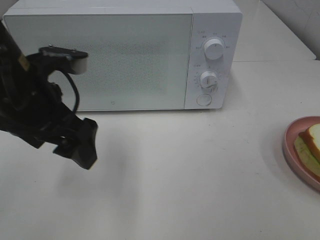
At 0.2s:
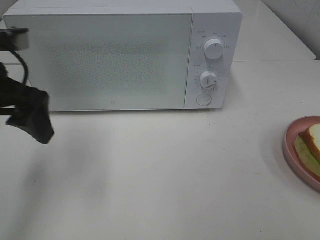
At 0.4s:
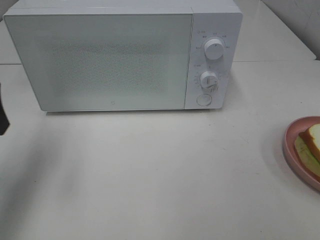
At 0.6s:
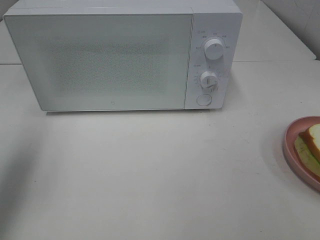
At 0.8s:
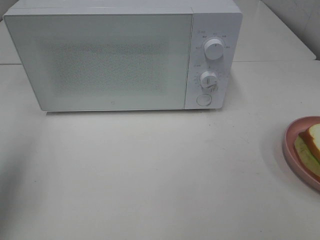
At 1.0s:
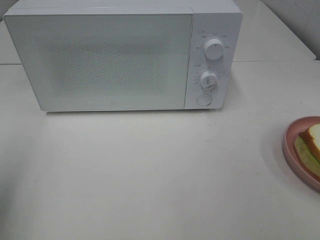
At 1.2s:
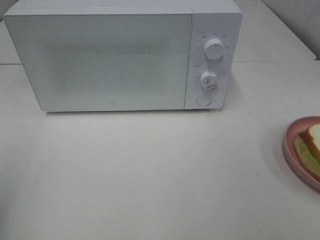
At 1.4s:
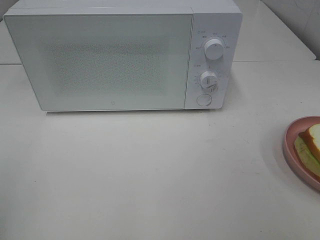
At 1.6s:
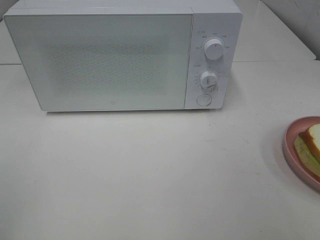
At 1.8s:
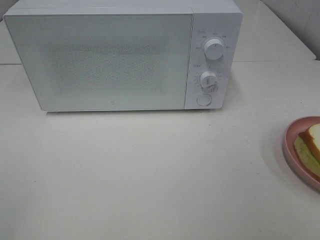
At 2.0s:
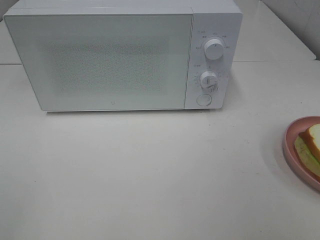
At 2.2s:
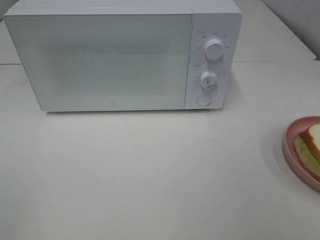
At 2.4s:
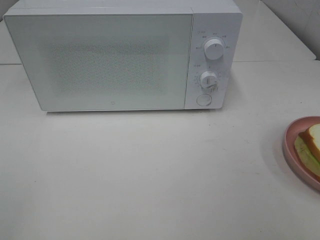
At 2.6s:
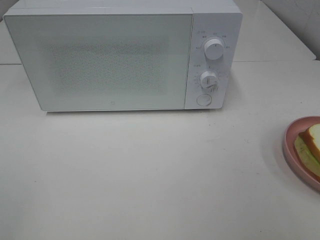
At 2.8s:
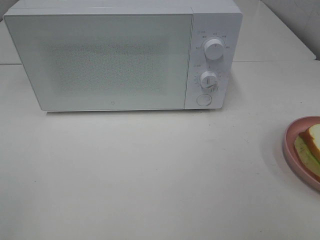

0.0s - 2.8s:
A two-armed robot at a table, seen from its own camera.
Task of the whole recording: Heat Sandwich.
0.0s - 1.4s: The left gripper is displaced backward and to the left by roughly 25 cm.

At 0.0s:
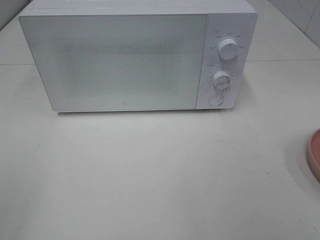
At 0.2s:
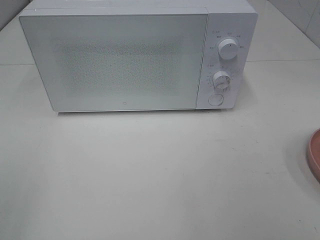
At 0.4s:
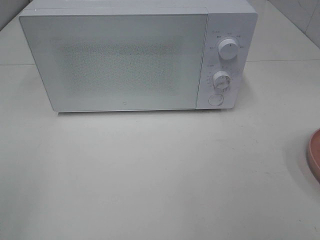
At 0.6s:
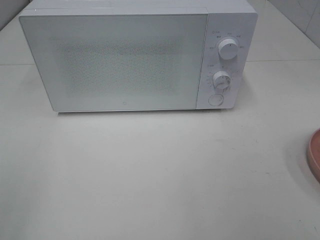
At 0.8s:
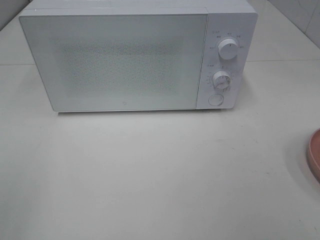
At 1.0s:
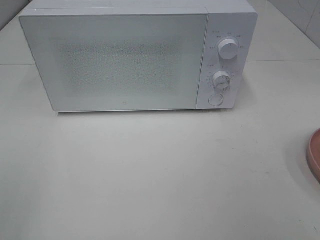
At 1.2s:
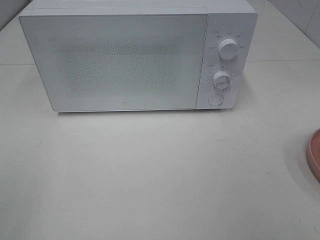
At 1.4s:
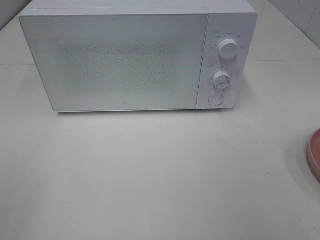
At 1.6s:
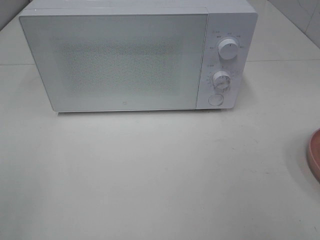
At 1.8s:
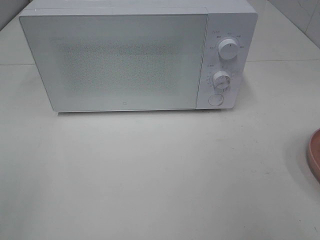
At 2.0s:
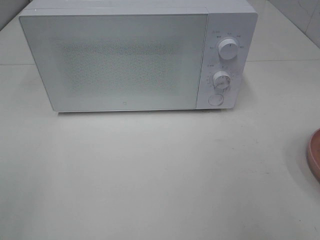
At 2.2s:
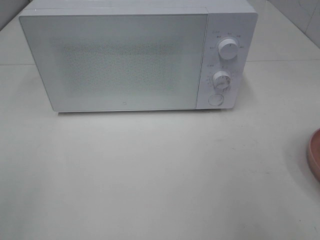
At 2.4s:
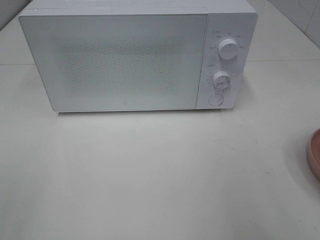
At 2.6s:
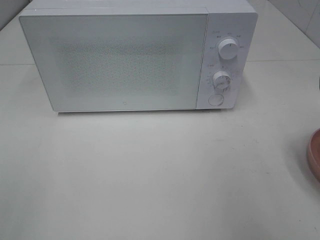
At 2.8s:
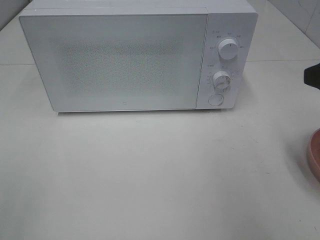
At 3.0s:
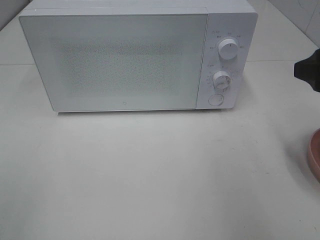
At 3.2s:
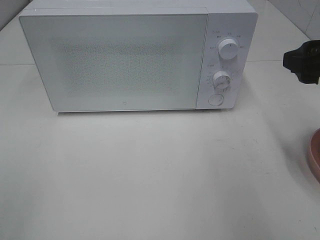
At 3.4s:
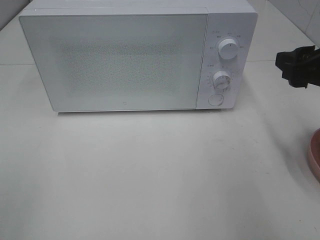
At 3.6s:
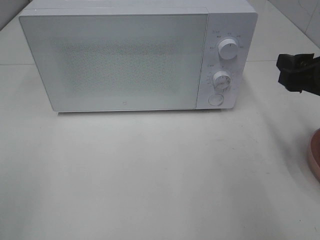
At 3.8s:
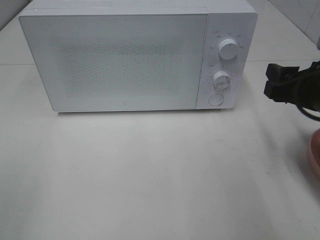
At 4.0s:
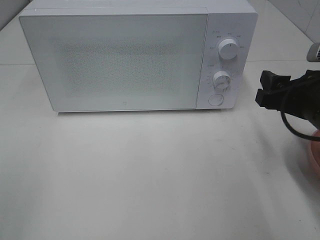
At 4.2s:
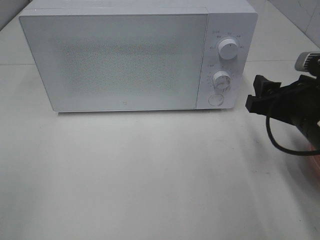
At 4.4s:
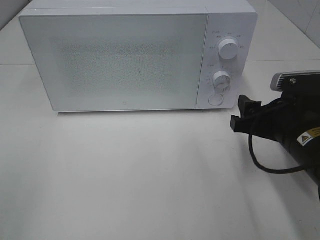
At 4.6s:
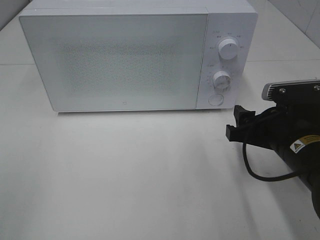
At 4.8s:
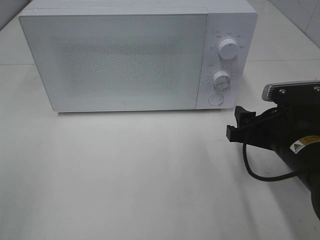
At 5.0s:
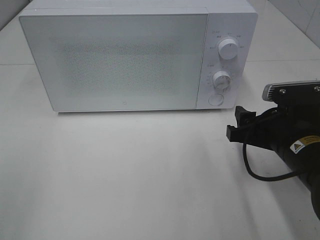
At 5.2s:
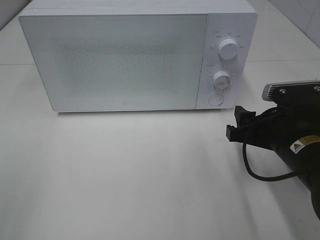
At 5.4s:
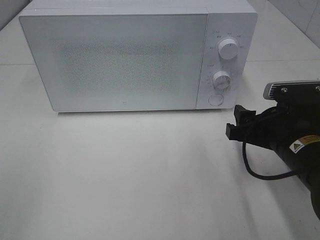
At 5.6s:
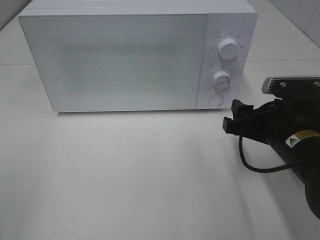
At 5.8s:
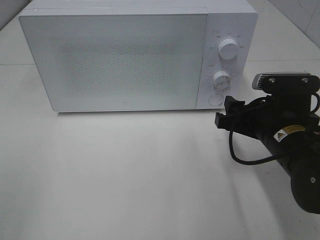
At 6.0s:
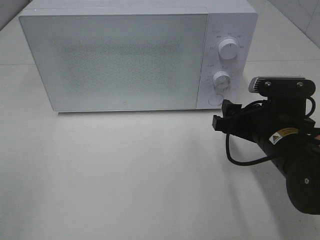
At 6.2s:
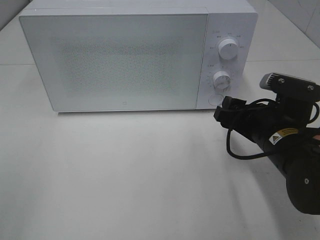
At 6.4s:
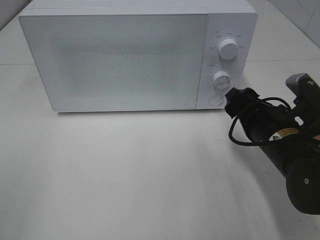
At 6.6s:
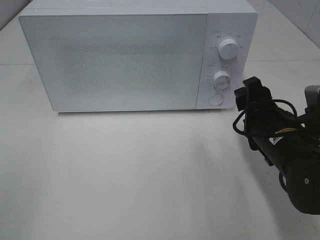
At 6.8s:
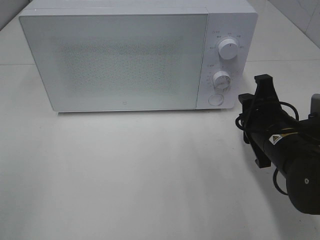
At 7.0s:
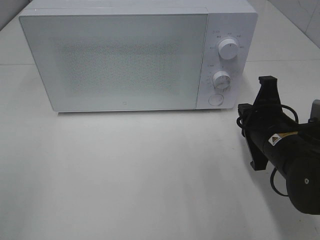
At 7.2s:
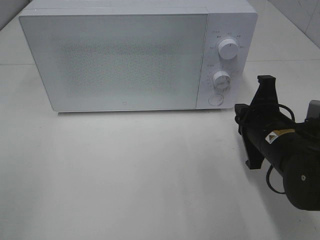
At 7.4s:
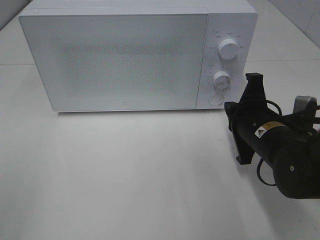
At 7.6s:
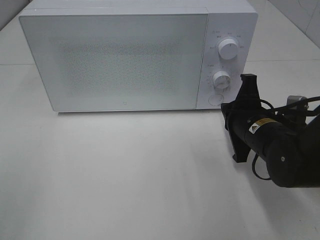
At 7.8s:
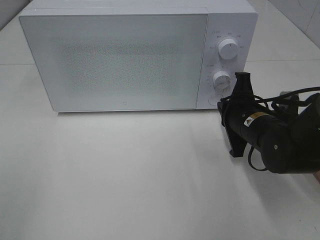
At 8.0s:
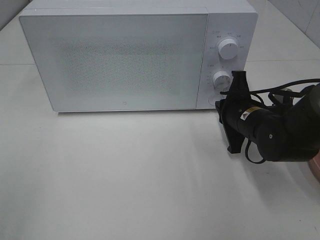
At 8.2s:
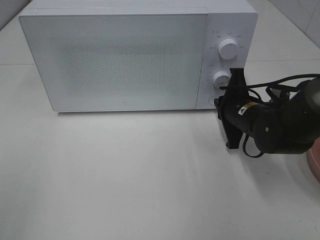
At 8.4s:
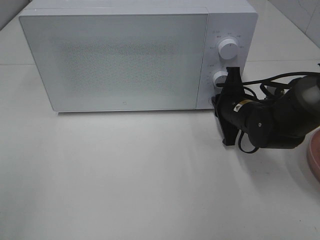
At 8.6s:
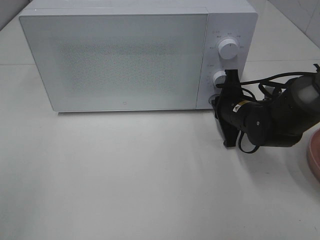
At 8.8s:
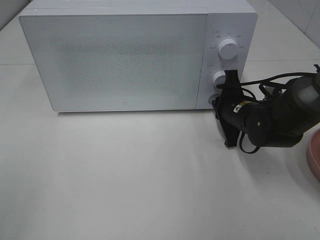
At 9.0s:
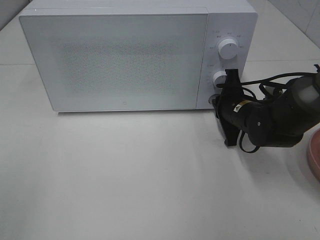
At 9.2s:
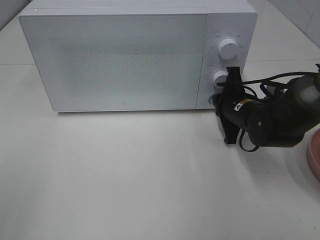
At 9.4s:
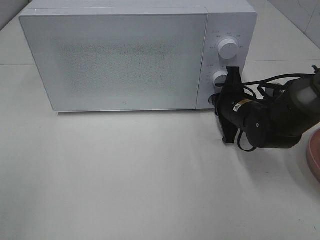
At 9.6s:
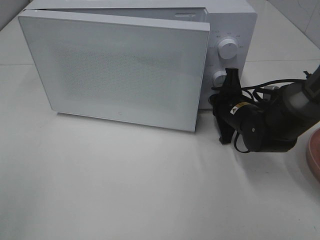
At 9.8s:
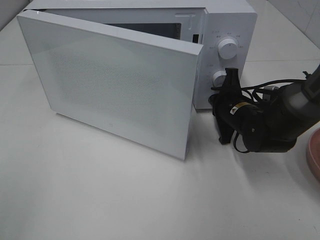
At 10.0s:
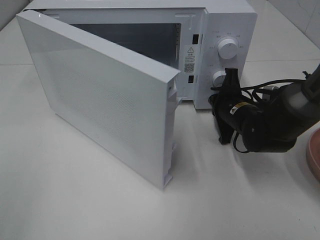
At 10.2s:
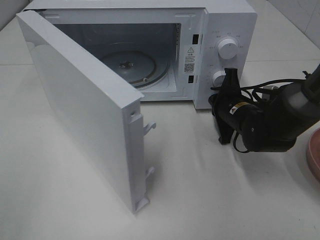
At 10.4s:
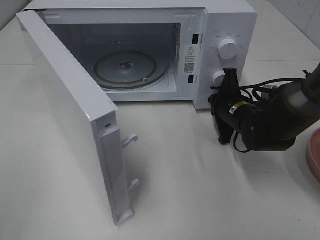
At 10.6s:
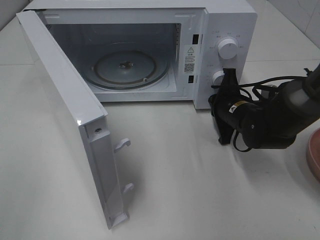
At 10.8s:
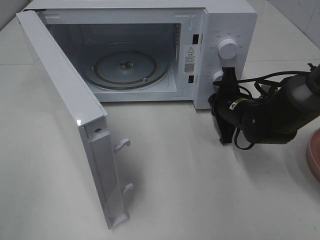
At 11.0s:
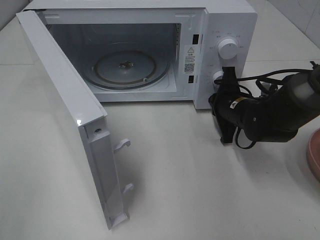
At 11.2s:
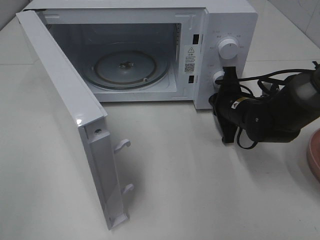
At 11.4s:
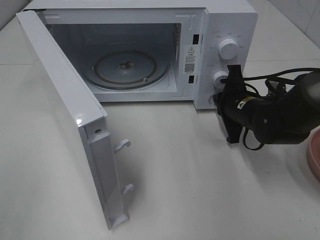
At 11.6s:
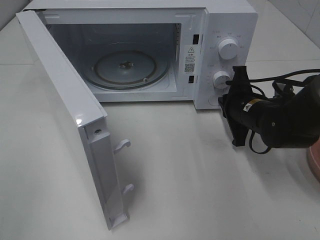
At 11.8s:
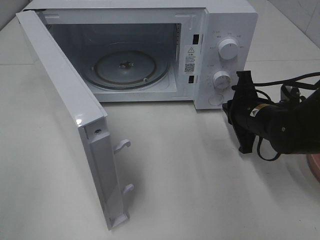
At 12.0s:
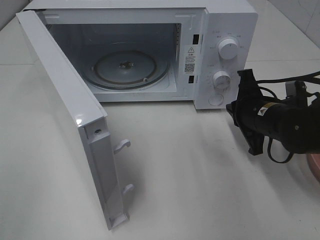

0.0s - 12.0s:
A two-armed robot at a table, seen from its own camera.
Task of the whole recording: Heat Sandwich.
Step, 0.0s - 11.4s: Right hand: press the switch.
1.6s - 3.0s: The right gripper goes about 15 cm forward.
3.0s - 4.4s: The right gripper heads downward and to the left, covering about 15 cm.
4.4s - 6.0s: The grippers stay close to where they were, moving slightly.
6.0s - 7.6s: The right gripper closes.
7.6s - 9.0s: The right gripper moves forward, roughly 10 cm.
10.4s - 12.0s: The right gripper shifts about 5 cm backward.

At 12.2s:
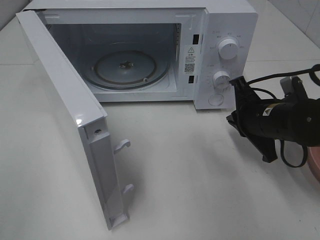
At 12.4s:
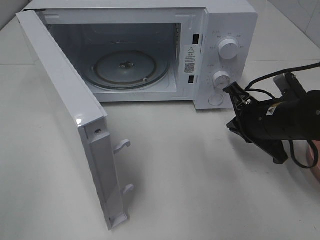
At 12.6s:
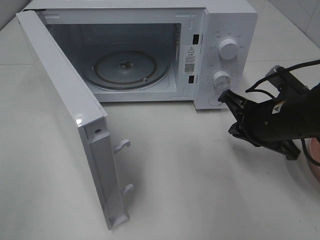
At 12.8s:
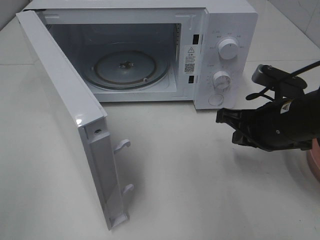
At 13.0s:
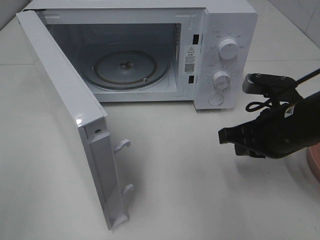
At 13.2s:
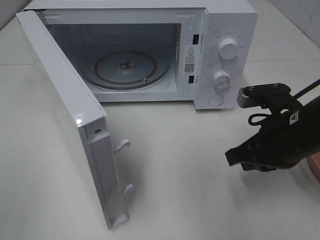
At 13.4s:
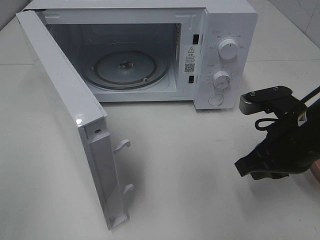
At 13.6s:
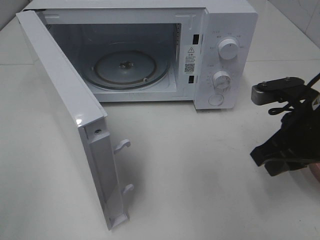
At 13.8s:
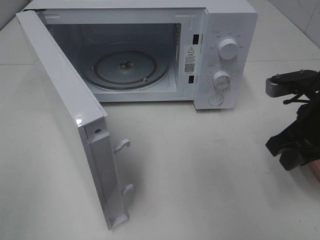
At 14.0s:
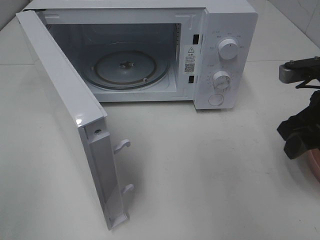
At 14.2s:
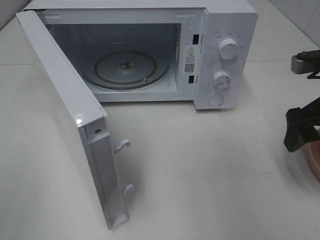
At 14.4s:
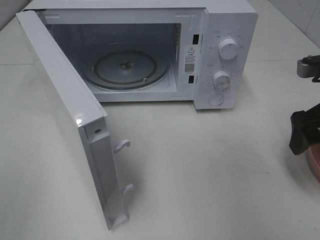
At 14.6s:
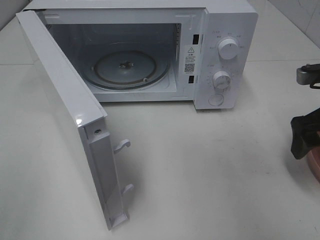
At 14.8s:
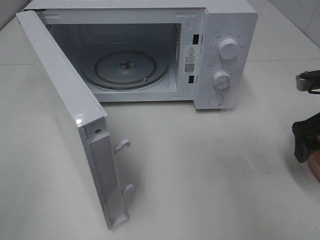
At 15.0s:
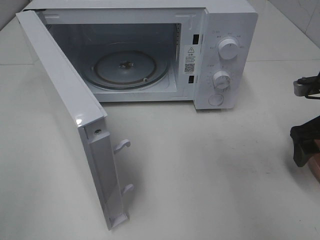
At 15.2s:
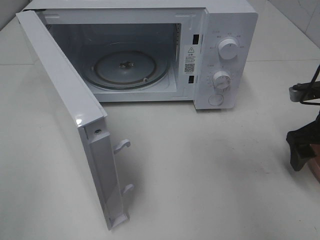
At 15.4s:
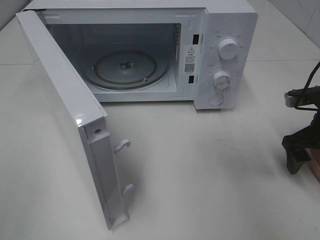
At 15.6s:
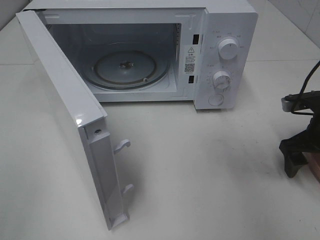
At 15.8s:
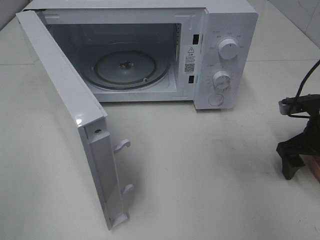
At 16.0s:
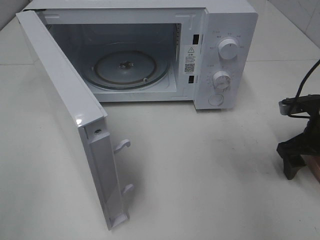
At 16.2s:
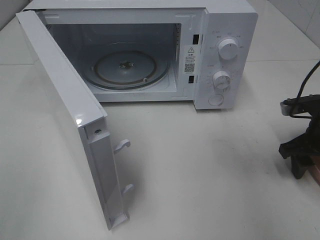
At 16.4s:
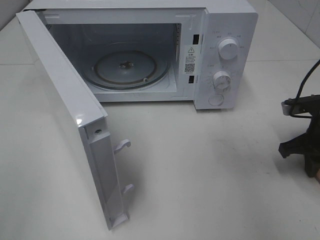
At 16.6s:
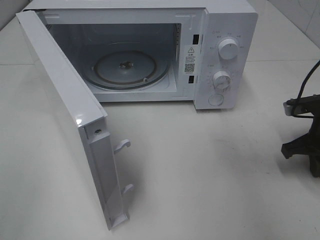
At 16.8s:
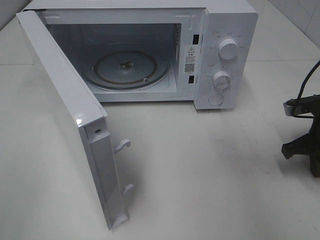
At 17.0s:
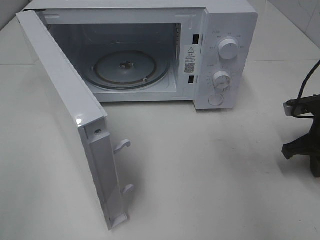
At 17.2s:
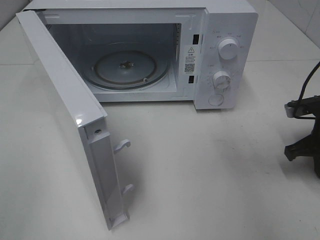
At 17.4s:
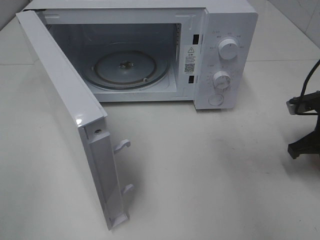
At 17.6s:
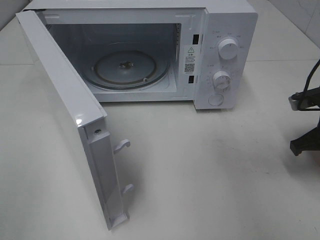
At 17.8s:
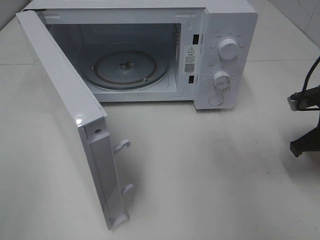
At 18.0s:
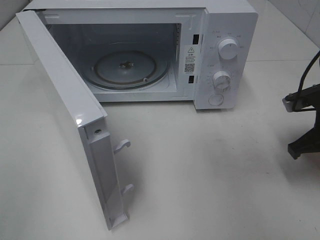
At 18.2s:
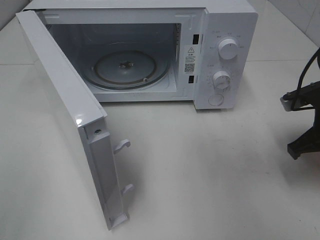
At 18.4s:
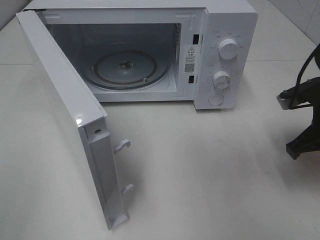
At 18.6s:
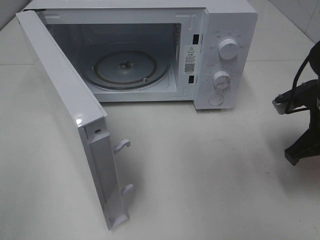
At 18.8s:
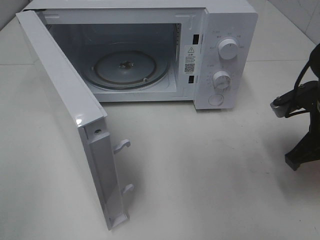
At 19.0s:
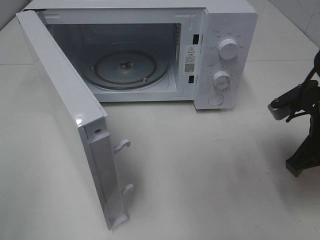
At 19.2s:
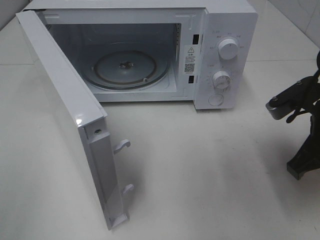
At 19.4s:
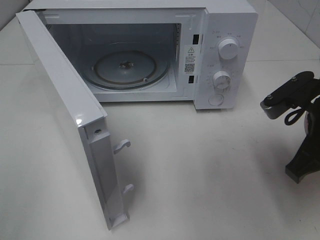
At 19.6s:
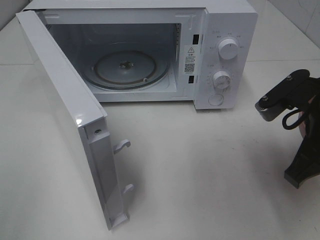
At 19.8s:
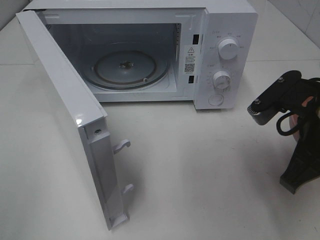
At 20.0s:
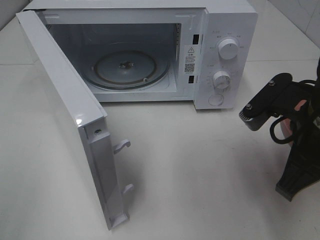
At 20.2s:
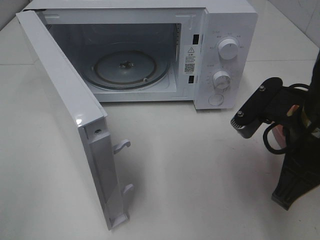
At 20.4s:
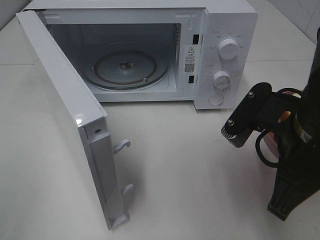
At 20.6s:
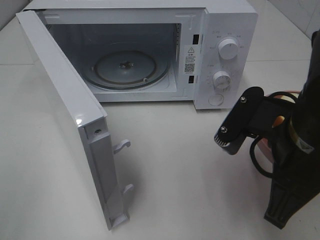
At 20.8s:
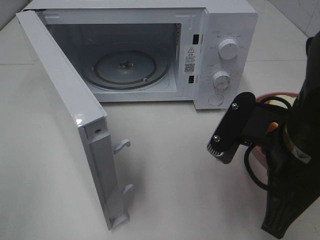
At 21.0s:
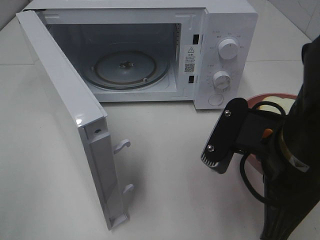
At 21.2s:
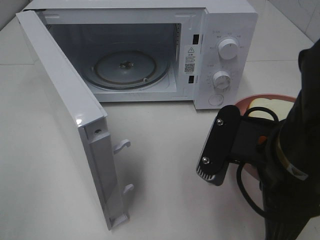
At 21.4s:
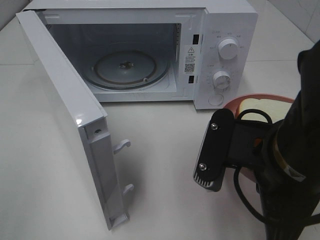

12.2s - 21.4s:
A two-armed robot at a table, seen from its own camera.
Task of the whole recording: Heat Sandwich.
Step, 12.2s - 17.0s: Right hand: grab the plate with the sandwich.
12.2s - 13.8s: The right gripper goes roughly 10 cm upward and backward.
13.8s - 15.2s: The right gripper moves to the right, approximately 5 cm, and opens its fingers.
15.2s - 16.8s: The right gripper closes.
16.8s - 18.4s: The right gripper heads upward, covering approximately 5 cm.
18.4s - 19.8s: The right gripper travels backward, to the left and upward by some 10 cm.
19.8s - 21.4s: The right gripper travels to the left and backward by some 10 cm.
